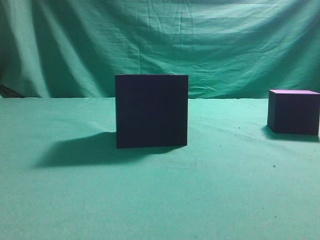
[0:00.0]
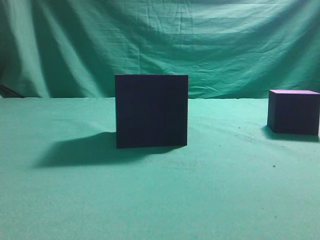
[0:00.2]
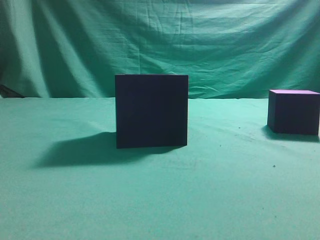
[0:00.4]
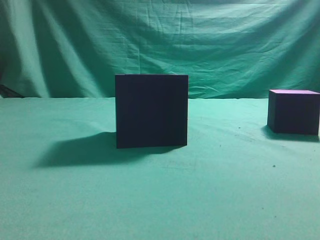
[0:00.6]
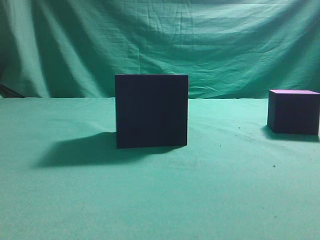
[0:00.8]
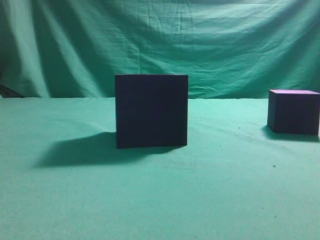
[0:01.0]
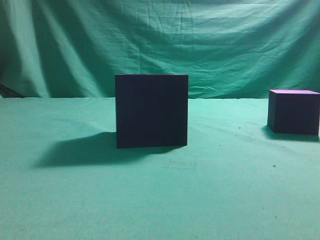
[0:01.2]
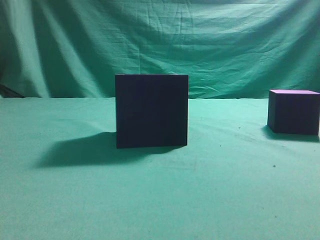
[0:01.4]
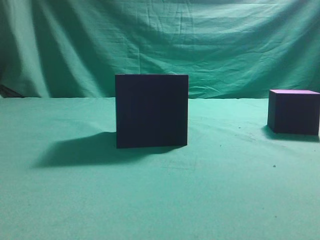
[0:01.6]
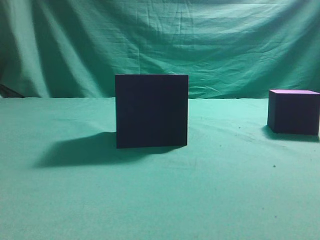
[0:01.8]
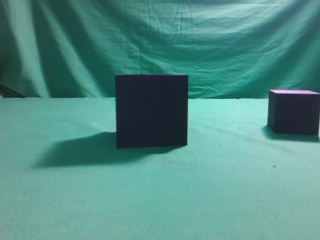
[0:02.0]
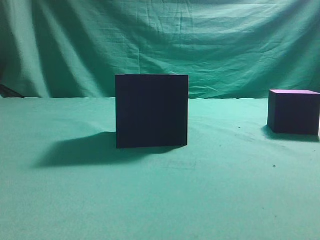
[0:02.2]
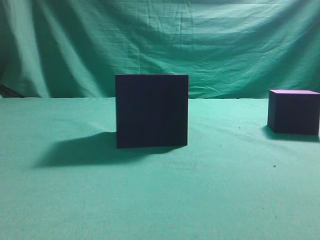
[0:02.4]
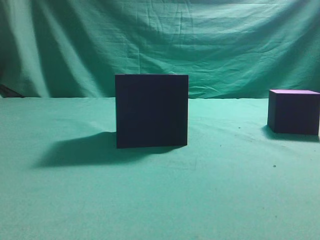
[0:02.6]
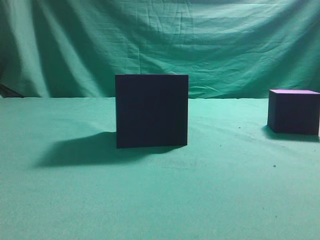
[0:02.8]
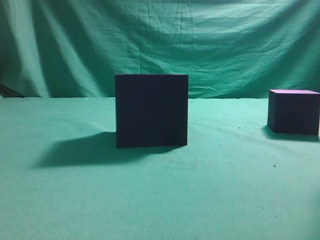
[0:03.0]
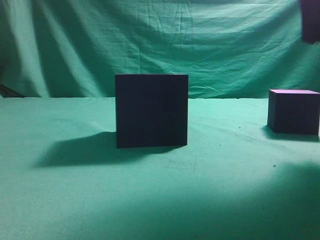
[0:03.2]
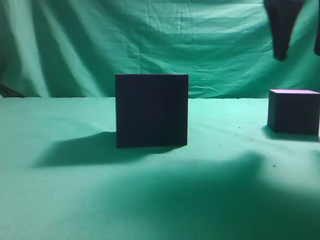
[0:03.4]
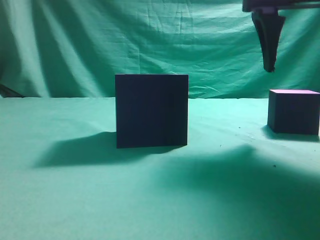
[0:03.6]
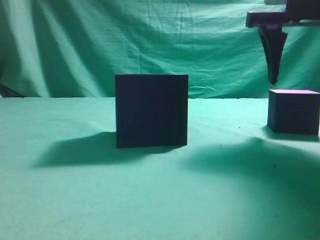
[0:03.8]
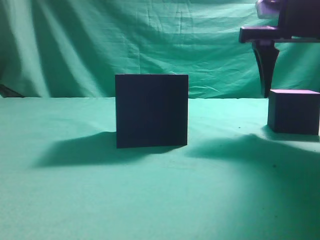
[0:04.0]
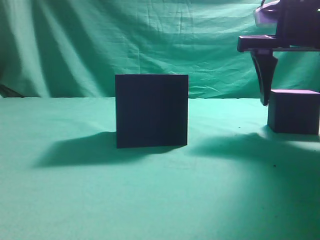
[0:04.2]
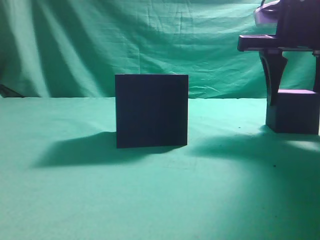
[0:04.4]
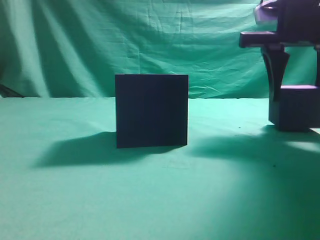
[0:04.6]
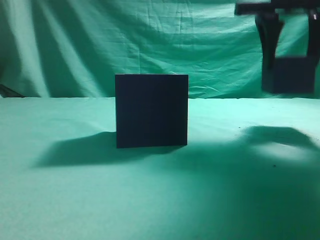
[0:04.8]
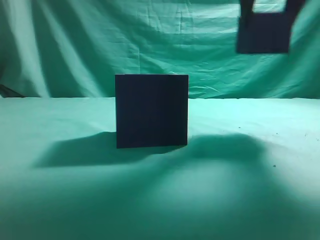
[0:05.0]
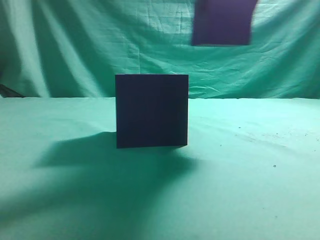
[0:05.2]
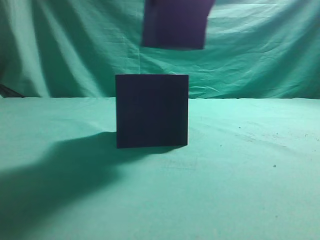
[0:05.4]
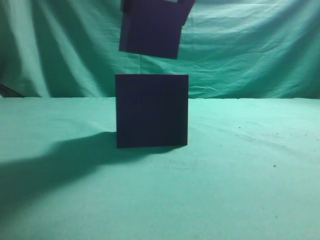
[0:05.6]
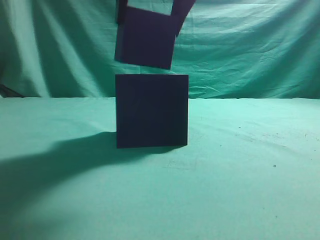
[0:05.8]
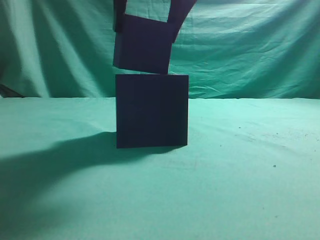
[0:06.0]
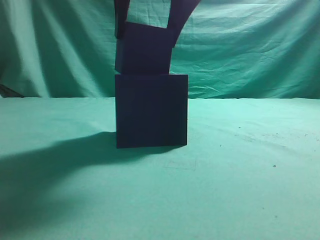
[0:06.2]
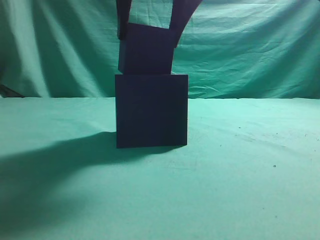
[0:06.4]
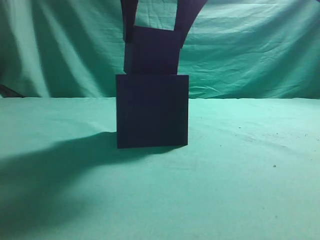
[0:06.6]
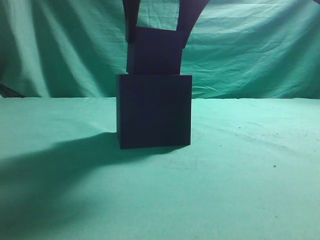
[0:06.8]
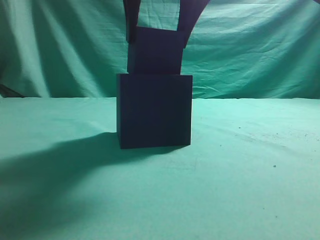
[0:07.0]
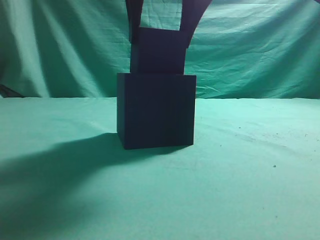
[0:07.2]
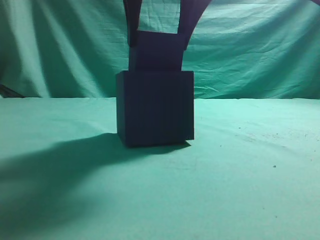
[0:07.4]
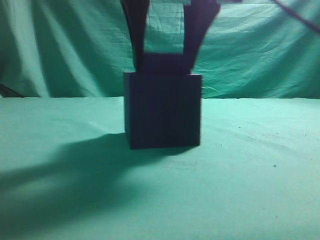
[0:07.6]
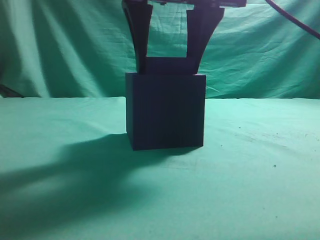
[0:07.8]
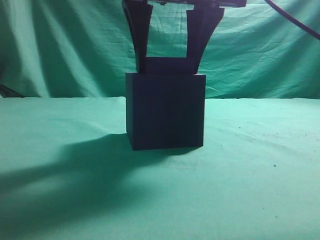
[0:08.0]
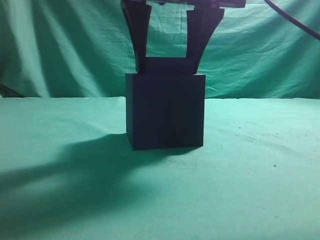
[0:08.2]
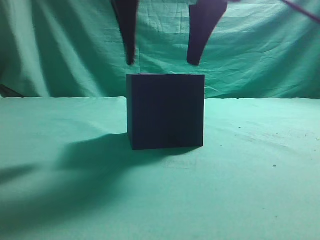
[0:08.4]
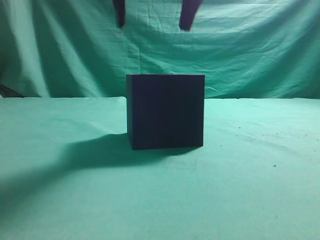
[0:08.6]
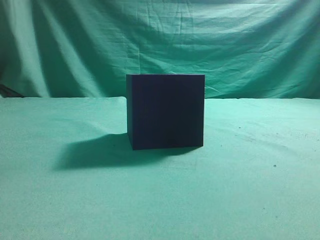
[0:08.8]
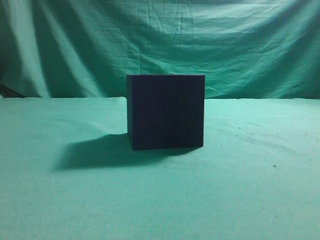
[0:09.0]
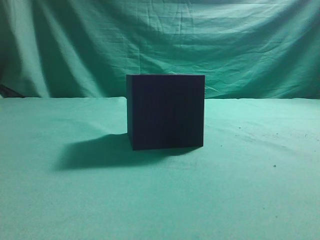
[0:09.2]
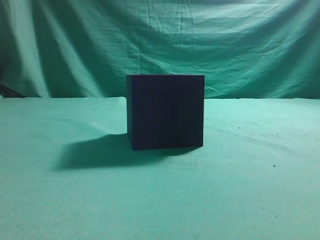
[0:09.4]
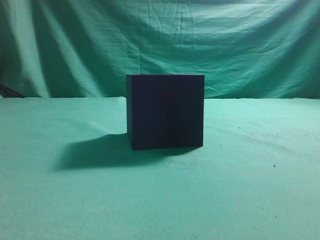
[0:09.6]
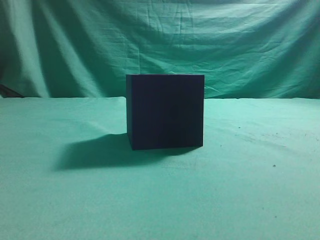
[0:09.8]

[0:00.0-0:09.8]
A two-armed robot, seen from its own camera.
Task of the whole recording: pick up the cube block and place it into the cube groove.
Step, 0:00.0 to 0:04.6: Grasp the cube.
Step, 0:04.8 to 0:08.4: Place cube into the cube-shaped recess.
0:02.8 to 0:04.2: The right gripper is displaced forward and downward by roughly 15 cm, and opens.
0:04.2 to 0:05.6: The right gripper travels to the left, upward and backward by about 20 cm.
0:05.6 to 0:08.4: The grippers stay close to where they were, moving slightly.
0:08.4 to 0:09.8: The right gripper shifts approximately 30 cm to the right, upward and backward, and closes up.
